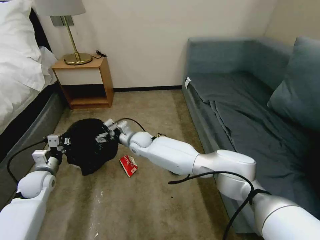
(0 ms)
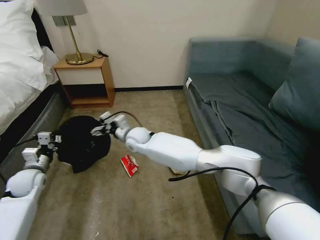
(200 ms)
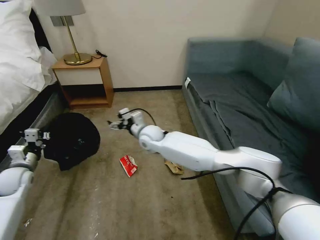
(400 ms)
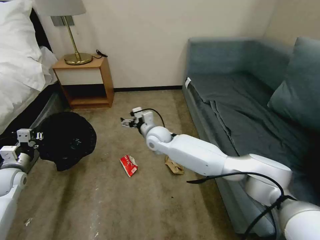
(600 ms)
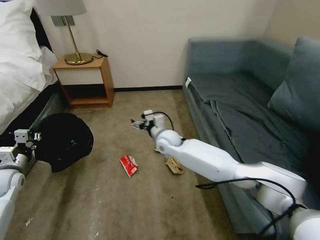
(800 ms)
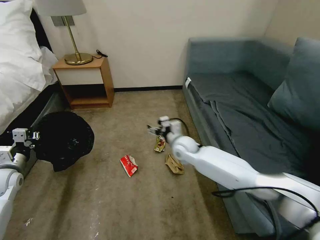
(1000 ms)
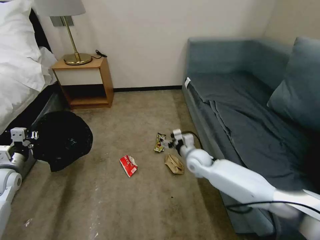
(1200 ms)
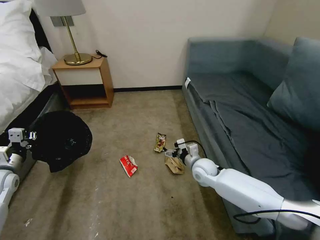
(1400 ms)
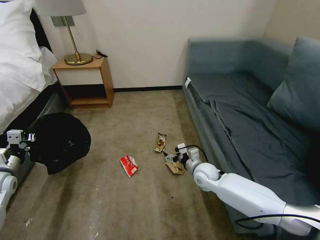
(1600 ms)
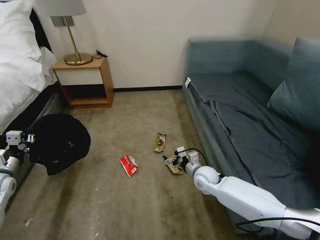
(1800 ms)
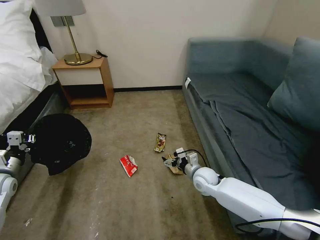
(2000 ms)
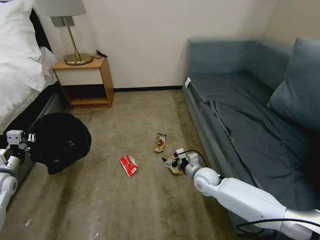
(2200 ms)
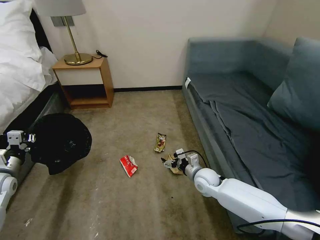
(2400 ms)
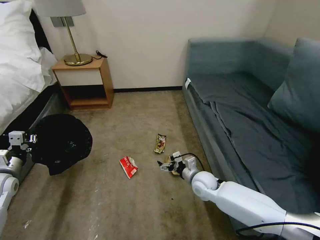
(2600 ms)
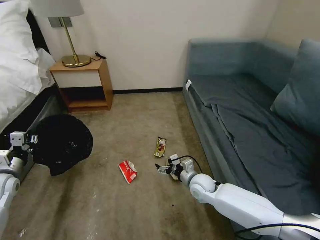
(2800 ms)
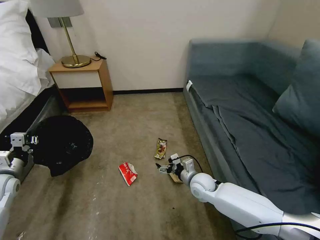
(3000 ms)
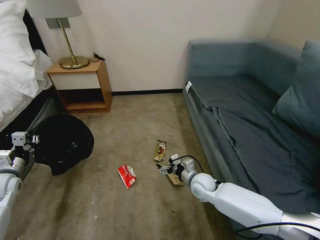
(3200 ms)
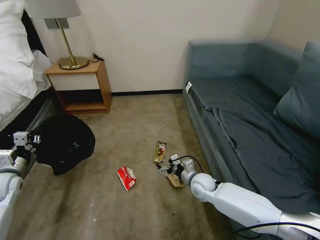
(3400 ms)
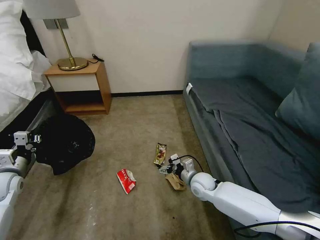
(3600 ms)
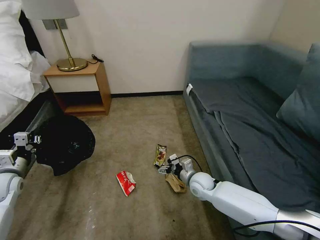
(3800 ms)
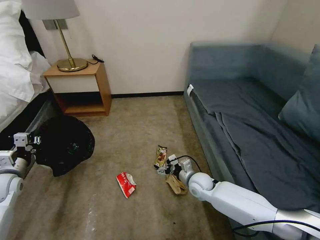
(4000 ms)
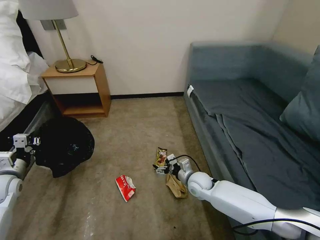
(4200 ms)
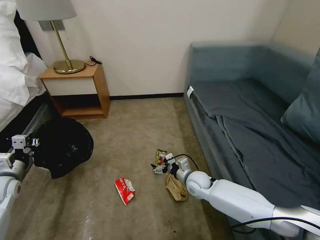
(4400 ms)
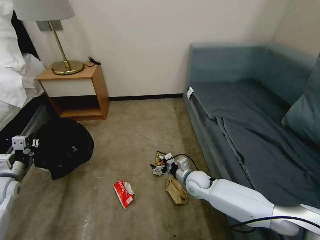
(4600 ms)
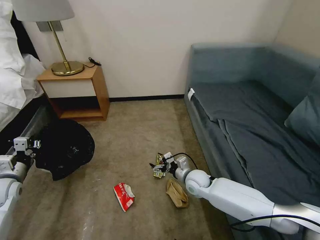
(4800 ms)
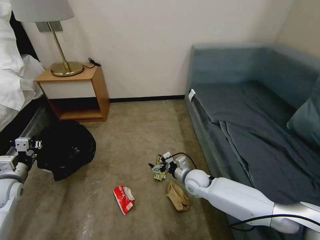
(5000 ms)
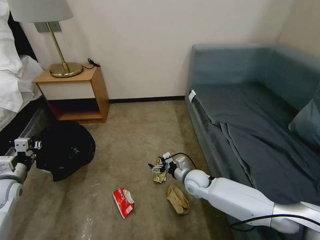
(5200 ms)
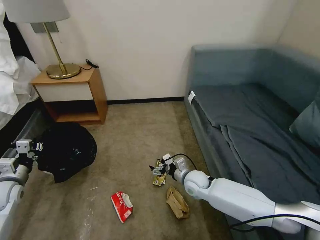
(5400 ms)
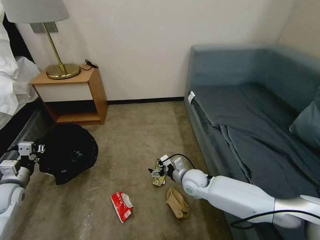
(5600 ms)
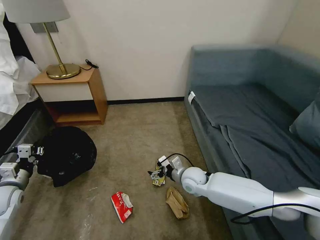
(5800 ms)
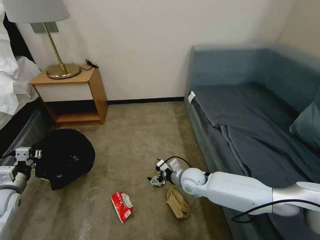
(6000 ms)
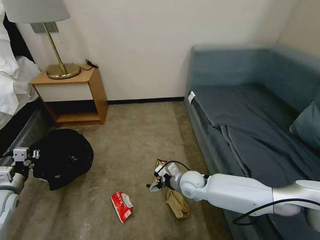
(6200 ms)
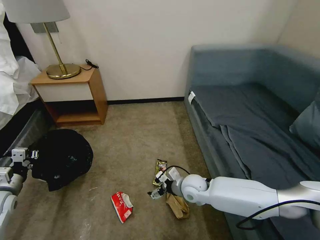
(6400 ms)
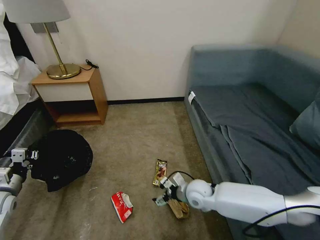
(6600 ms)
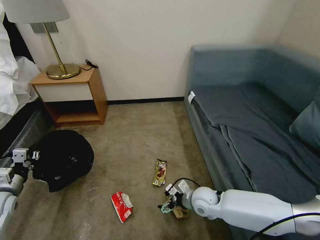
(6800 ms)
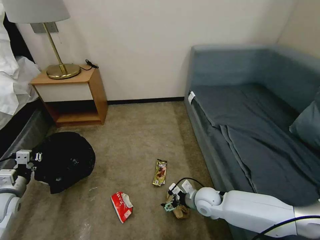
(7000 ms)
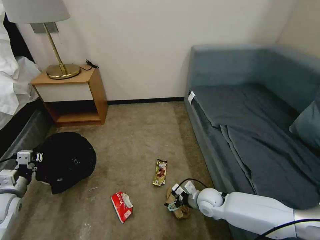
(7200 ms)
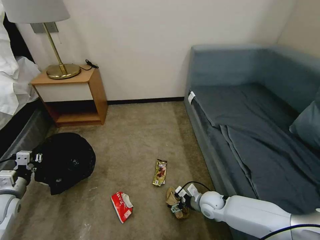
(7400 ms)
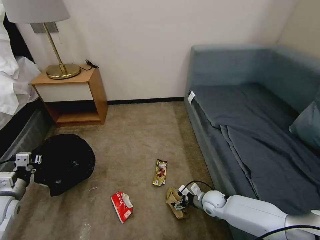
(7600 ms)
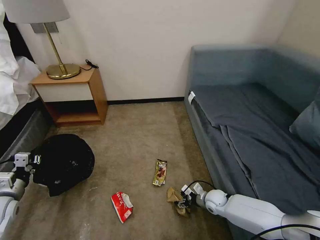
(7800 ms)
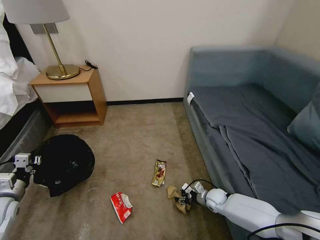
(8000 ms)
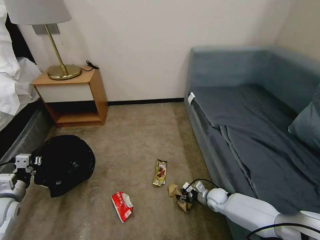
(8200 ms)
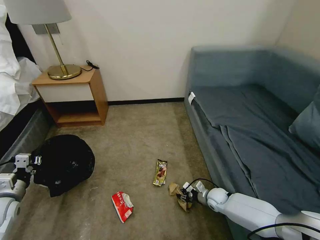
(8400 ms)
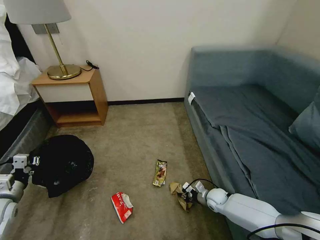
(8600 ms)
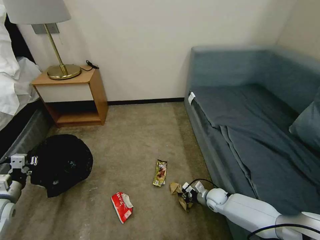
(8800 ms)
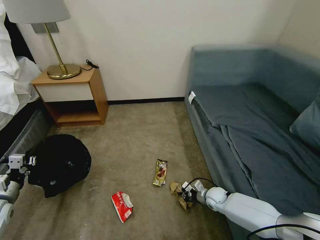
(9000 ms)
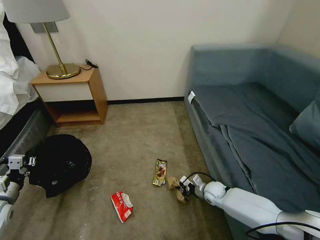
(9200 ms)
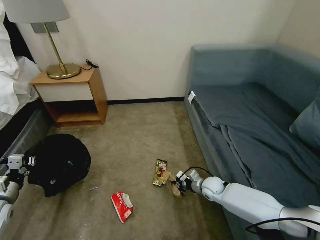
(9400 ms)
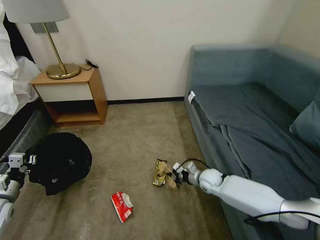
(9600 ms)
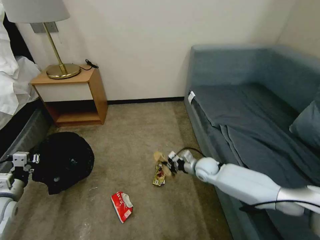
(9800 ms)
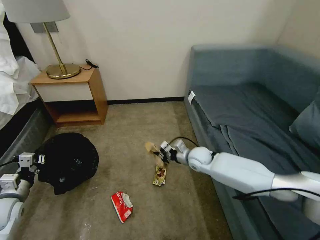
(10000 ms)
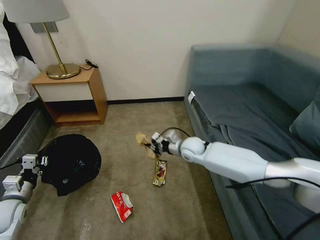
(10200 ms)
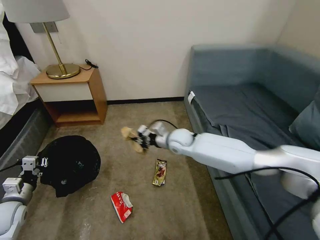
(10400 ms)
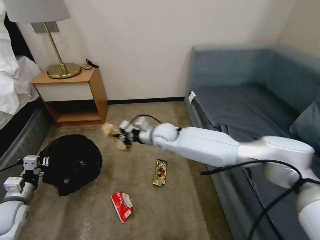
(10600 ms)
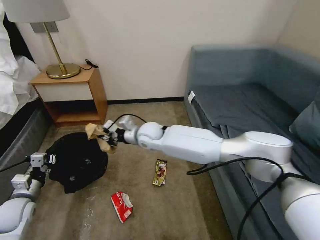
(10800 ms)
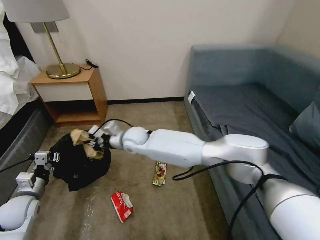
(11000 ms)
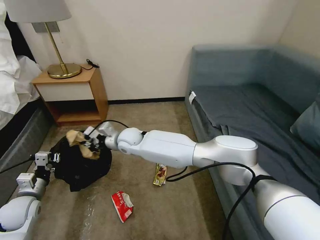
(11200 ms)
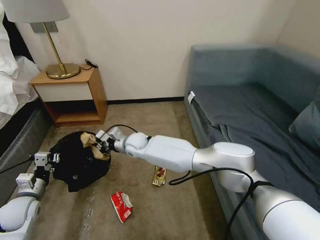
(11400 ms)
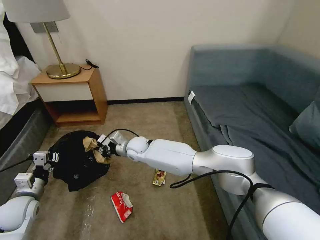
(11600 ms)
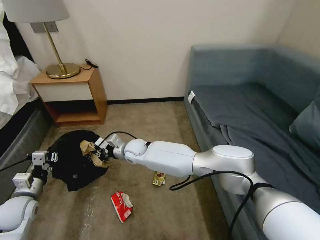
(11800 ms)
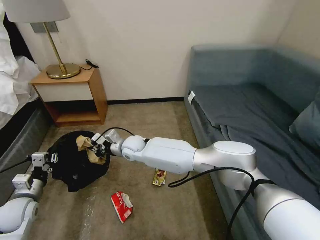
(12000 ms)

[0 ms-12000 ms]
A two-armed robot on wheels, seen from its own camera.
Task of the whole recording: Pick up the trash bin, then pick up the garbage on the floor and place it into the trash bin.
0 ms to 1600 ms: The left gripper shifts about 10 cm to the left and upward. Meanwhile the right gripper moves to the right, approximately 25 cm.
1600 ms to 4400 ms: The grippers make only small movements.
6000 ms to 7600 ms: The right gripper shifts roughly 15 cm downward and to the right.
7600 ms to 9000 ms: The right gripper closes its fingers.
9000 ms to 10400 ms: The right gripper is displaced upward, to the left and forward by some 30 cm.
10400 ms to 12000 ms: The right gripper shifts some 20 cm to the left.

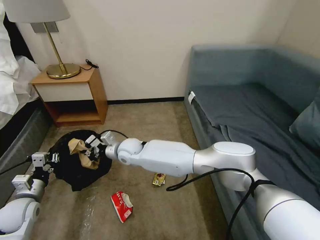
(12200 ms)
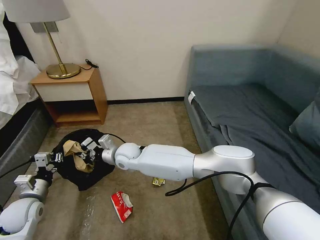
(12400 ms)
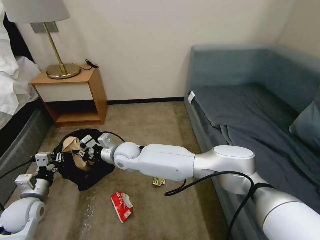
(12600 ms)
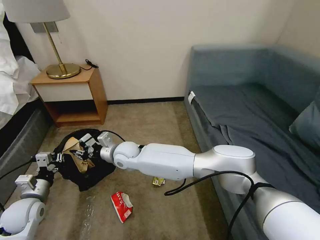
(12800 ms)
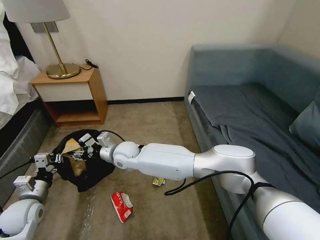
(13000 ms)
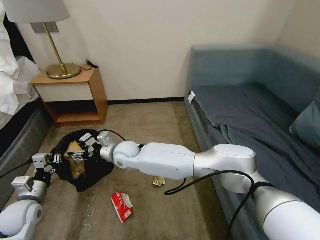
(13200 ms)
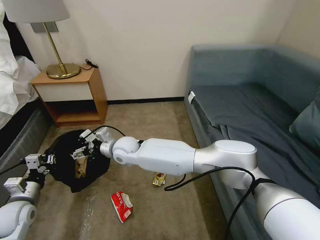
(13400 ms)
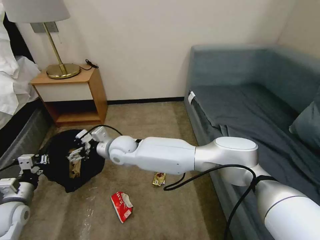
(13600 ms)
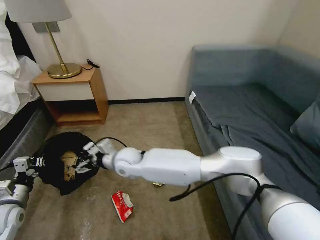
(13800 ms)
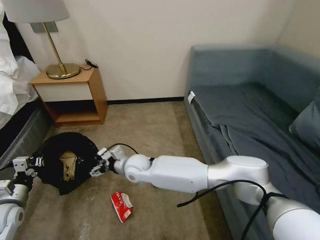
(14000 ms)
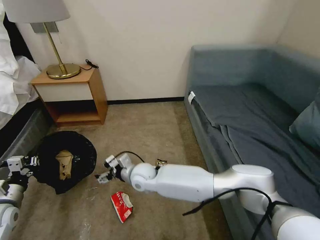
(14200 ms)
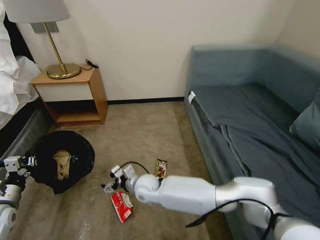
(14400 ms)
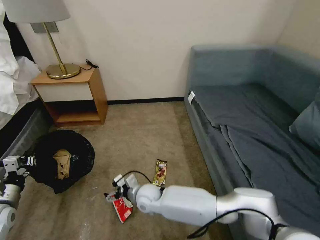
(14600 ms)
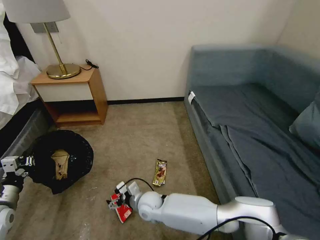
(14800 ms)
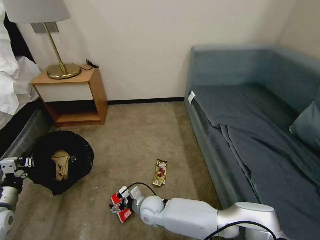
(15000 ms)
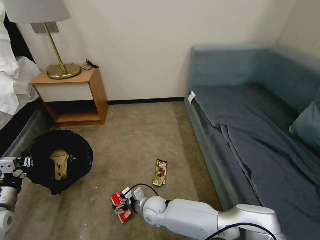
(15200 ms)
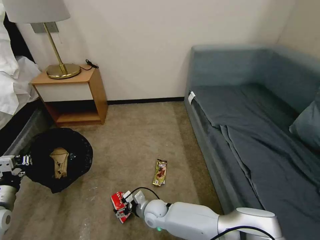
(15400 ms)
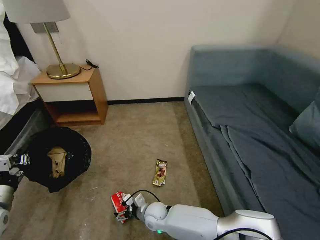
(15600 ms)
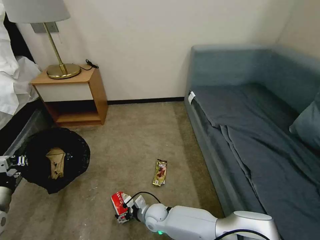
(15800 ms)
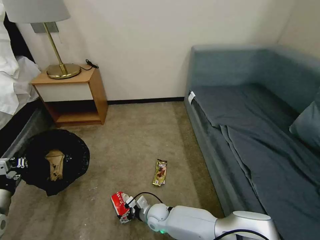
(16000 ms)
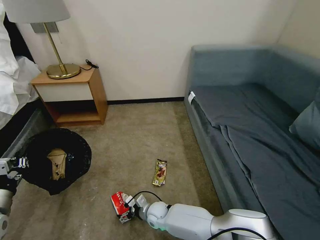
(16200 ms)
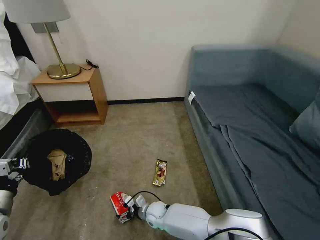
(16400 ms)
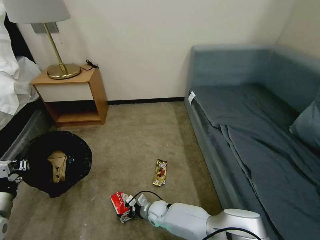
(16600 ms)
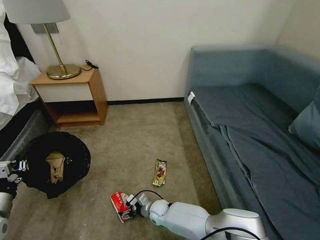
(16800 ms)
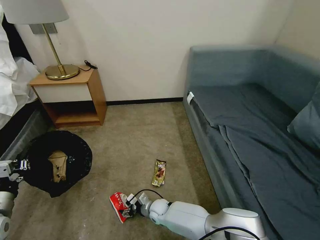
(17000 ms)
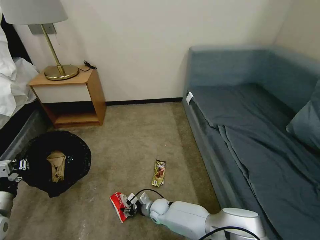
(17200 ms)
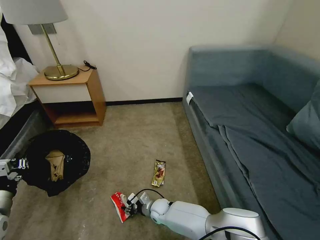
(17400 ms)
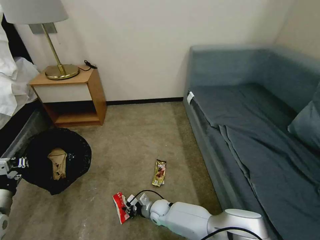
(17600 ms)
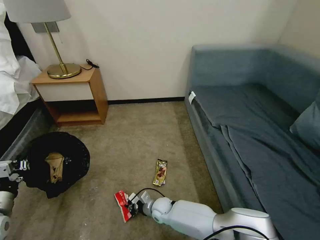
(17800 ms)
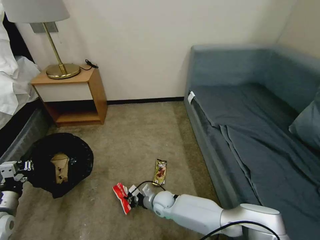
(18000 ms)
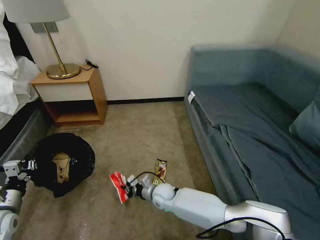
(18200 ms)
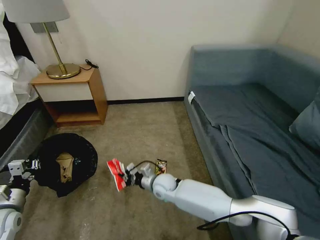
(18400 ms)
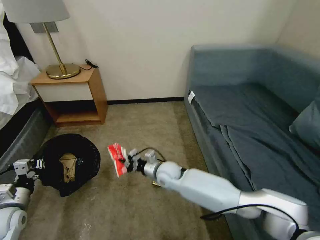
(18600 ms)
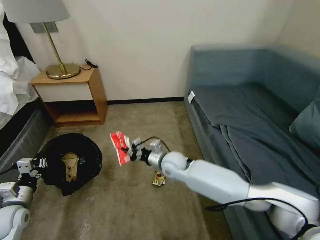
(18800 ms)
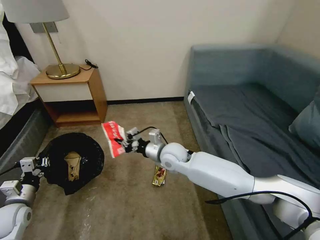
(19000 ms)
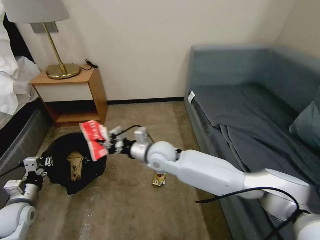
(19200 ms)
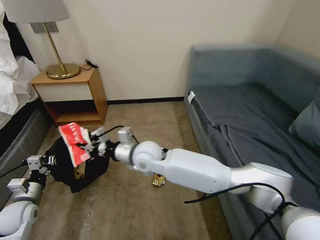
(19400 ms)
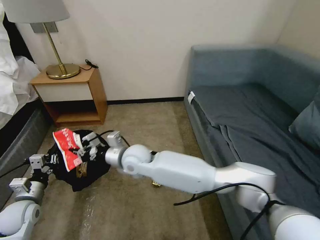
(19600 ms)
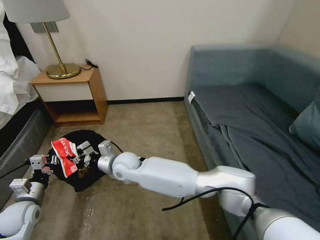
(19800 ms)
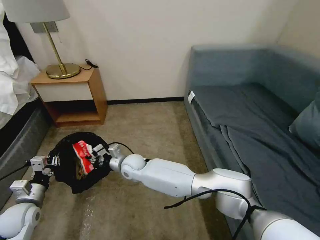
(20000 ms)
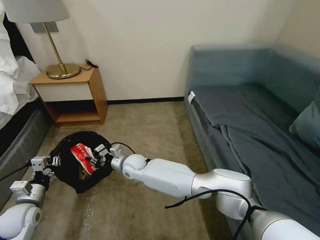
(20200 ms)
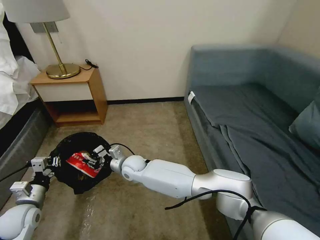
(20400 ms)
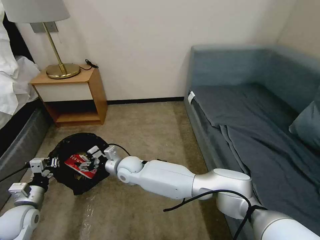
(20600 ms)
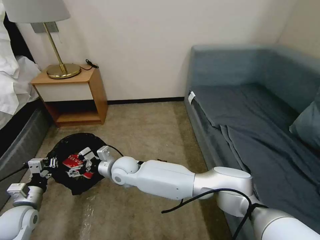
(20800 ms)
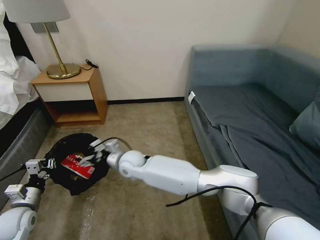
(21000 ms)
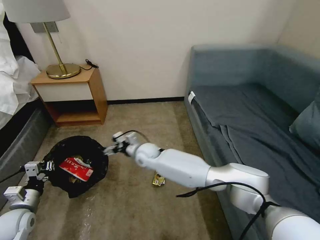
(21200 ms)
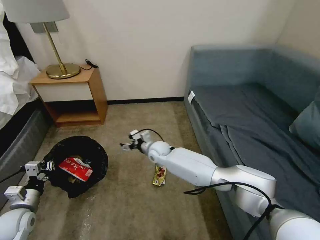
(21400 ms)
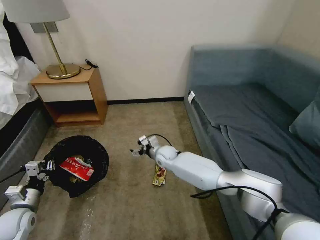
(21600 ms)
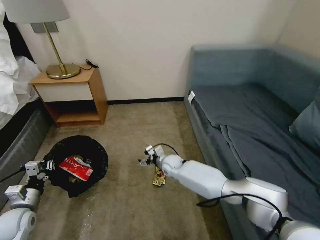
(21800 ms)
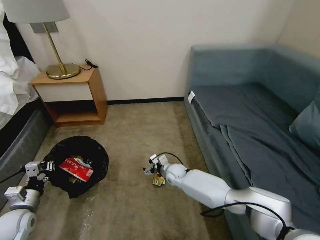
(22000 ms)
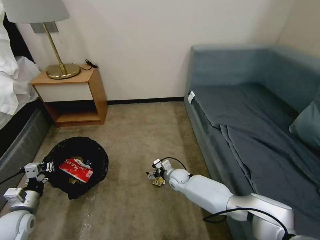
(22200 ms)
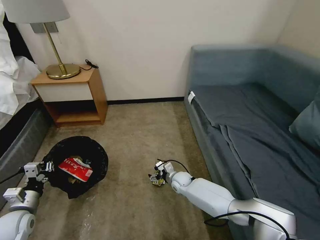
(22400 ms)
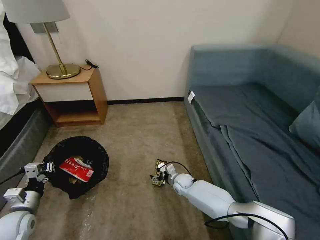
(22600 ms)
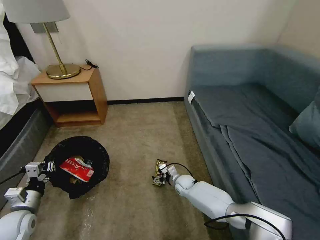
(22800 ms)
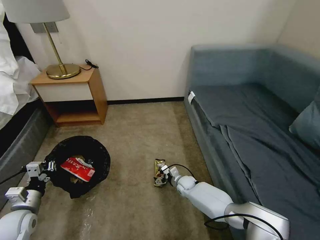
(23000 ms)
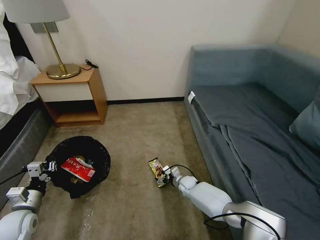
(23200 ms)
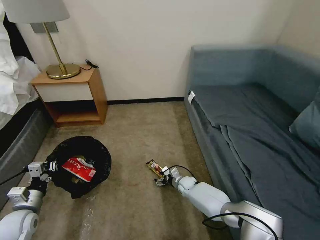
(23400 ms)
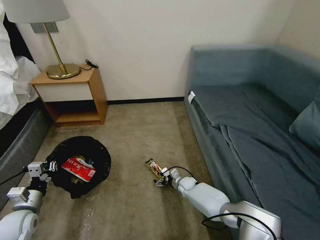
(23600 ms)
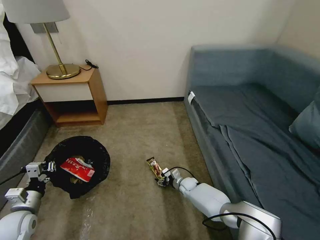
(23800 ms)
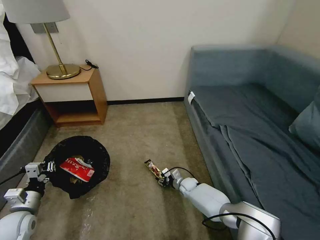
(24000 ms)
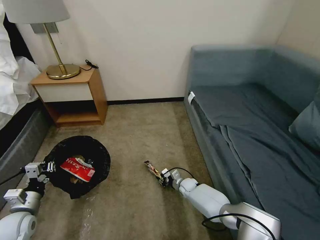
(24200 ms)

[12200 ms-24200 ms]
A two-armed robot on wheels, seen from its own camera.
Task of the whole recording: Pick up the trash bin, then pick up the garbage on the floor and place it into the trash bin.
12200 ms to 13800 ms: The right gripper shifts roughly 5 cm backward, and opens up.
13800 ms to 15200 ms: The right gripper is displaced downward, backward and to the right by approximately 25 cm.
15200 ms to 16600 ms: The right gripper goes about 10 cm downward.
16600 ms to 18200 ms: The right gripper shifts roughly 10 cm upward, and closes.
18200 ms to 19800 ms: The right gripper is displaced upward and to the left by about 25 cm, while the left gripper moves approximately 5 cm.
19800 ms to 21200 ms: The right gripper moves to the right and forward, about 10 cm, and opens up.
21200 ms to 22600 ms: The right gripper heads downward and to the right, covering approximately 25 cm.
22600 ms to 24200 ms: The right gripper heads downward, covering about 5 cm, and closes.
